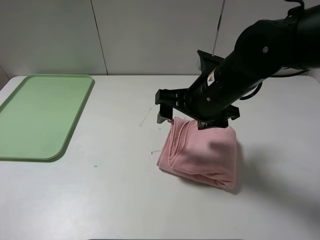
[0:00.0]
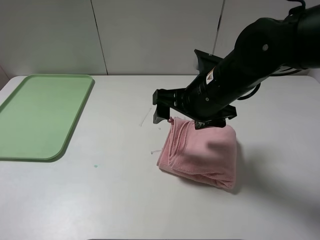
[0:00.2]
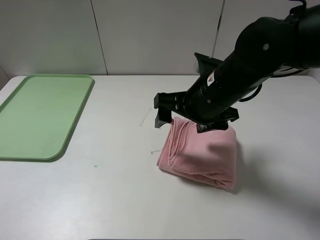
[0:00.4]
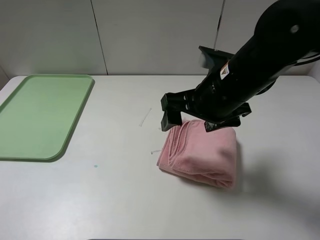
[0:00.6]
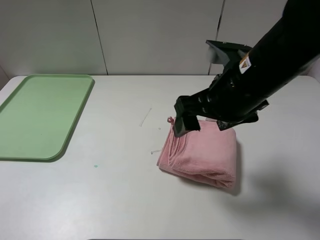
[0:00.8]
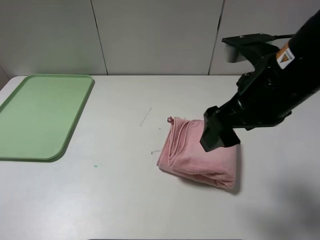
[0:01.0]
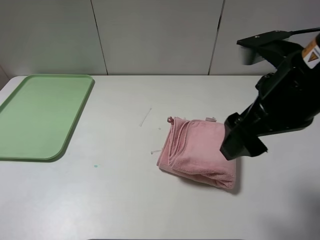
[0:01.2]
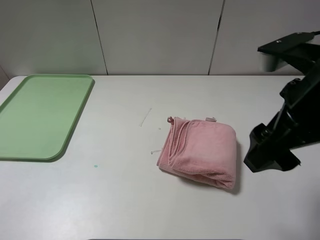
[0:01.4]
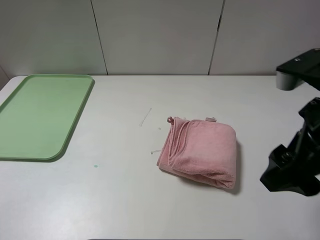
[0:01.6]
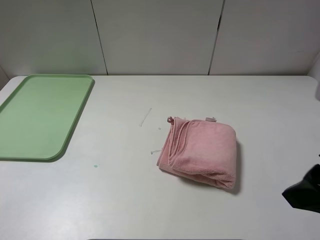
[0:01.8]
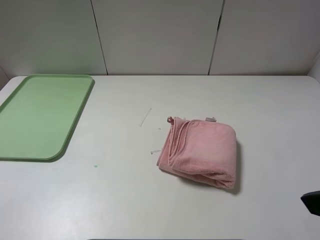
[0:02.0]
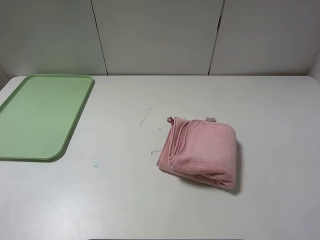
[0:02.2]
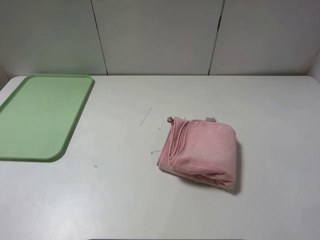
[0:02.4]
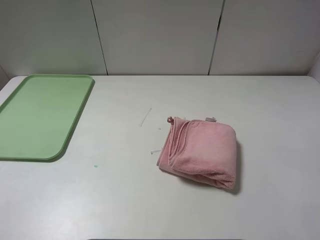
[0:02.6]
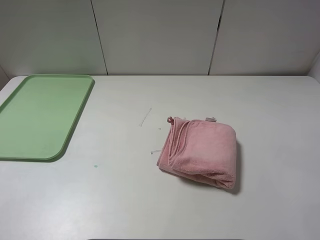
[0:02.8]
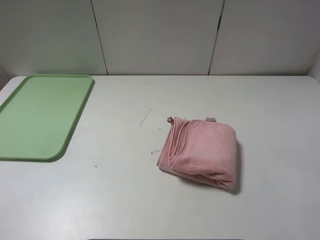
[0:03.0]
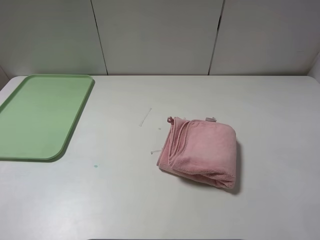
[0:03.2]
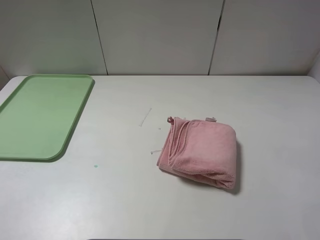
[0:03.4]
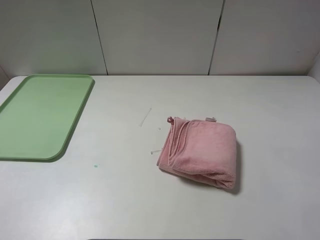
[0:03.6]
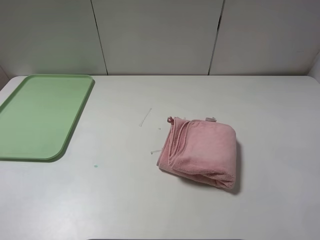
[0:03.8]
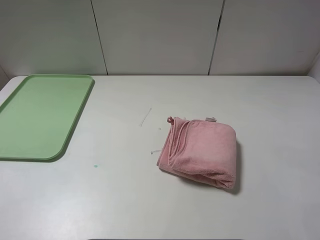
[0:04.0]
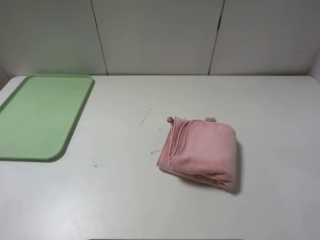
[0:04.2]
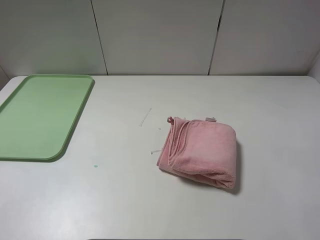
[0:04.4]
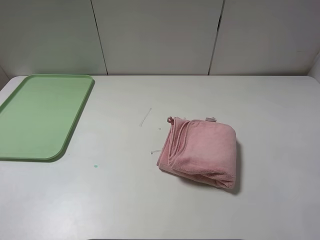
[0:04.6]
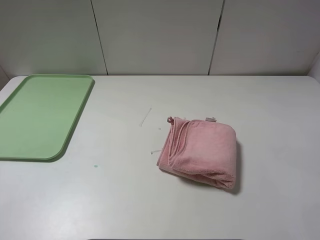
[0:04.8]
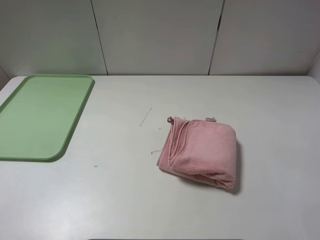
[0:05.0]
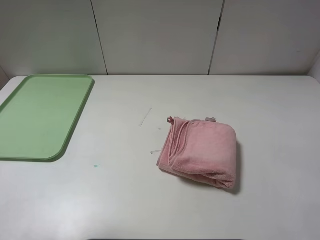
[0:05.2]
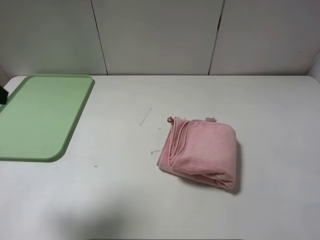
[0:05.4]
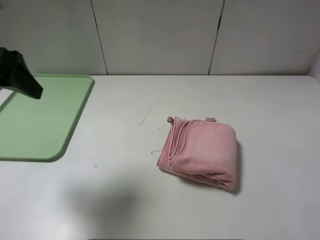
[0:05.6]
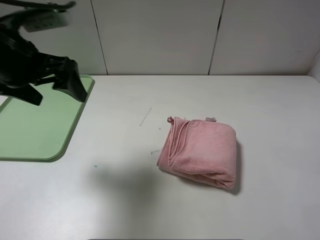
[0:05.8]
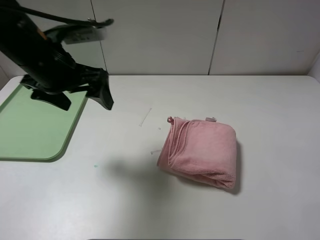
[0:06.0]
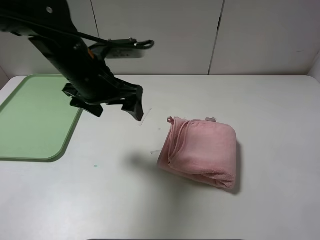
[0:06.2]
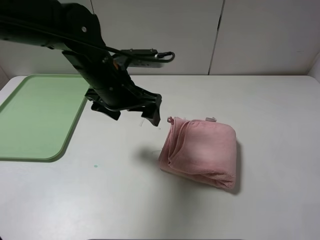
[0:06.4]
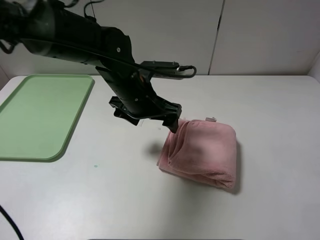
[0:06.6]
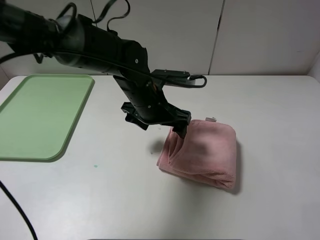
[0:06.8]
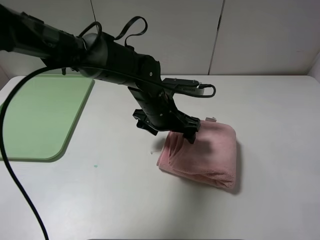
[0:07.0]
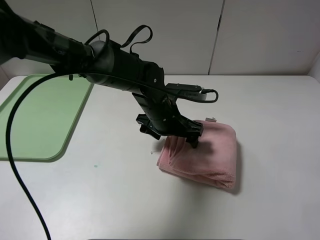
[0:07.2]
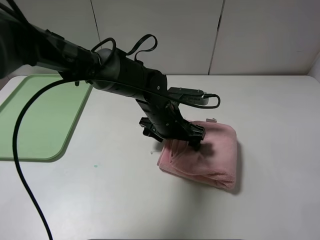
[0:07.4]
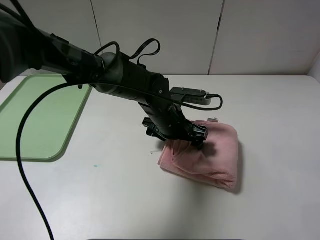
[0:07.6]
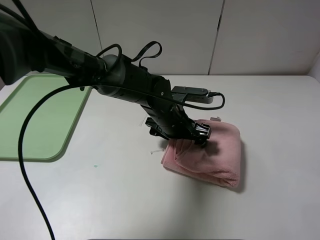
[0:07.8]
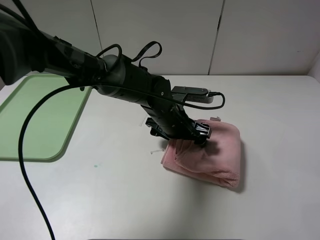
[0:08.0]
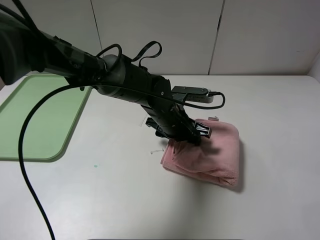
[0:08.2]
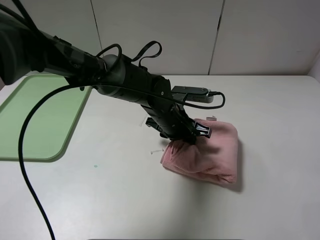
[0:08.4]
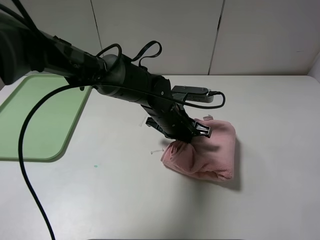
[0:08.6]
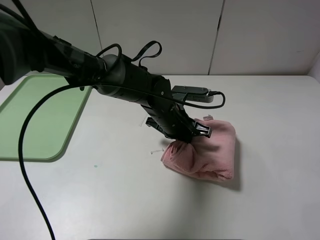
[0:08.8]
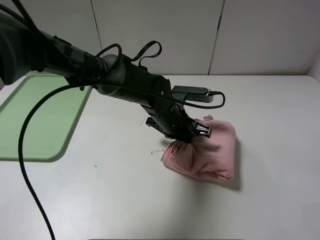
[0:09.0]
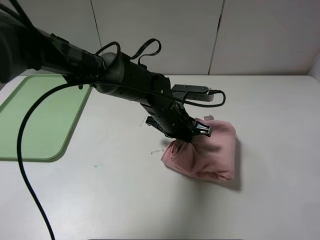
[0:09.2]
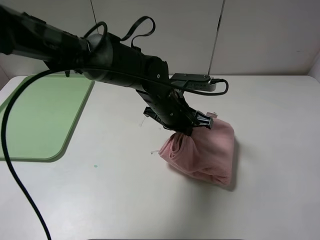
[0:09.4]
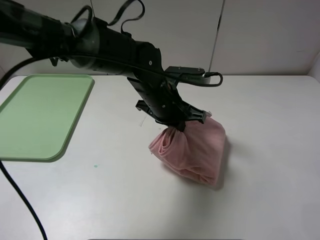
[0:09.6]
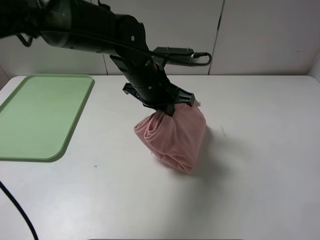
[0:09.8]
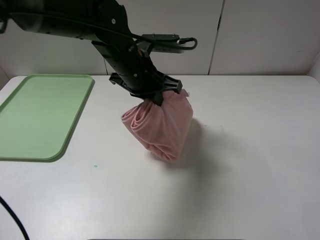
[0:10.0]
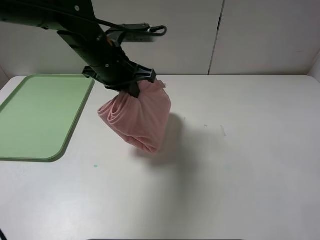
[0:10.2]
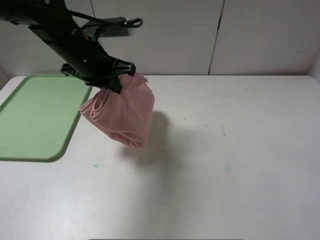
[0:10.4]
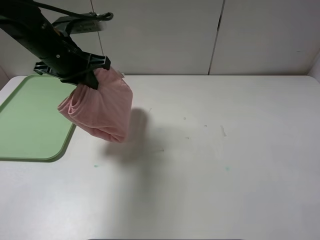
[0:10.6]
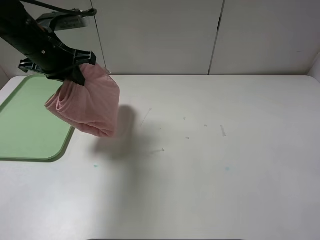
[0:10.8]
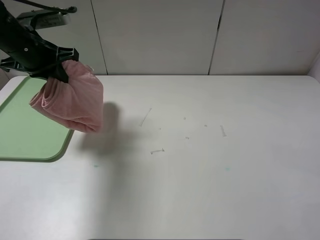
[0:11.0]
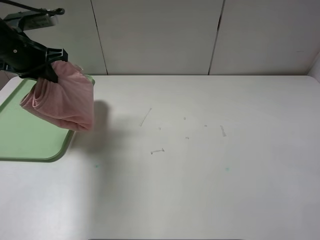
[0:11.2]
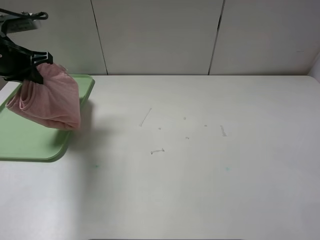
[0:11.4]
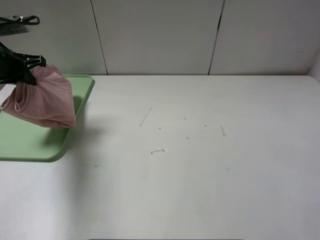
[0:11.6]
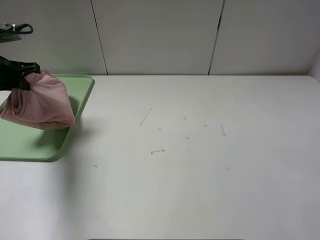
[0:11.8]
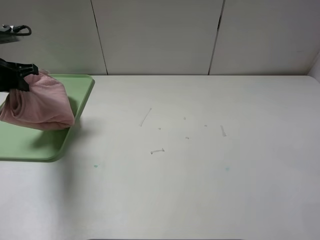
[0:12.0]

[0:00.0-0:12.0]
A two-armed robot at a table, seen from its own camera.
0:00.0 to 0:01.6: The right gripper heads backward, to the right and upward, covering some 20 cm.
0:01.6 to 0:03.0: The right gripper goes approximately 15 cm backward and to the right.
0:04.4 to 0:06.0: The left gripper goes approximately 35 cm forward and to the right.
0:06.0 to 0:07.6: The left gripper moves to the right and downward, about 25 cm.
0:07.6 to 0:09.0: The left gripper closes up.
0:09.0 to 0:10.4: The left gripper heads to the left and upward, covering some 20 cm.
0:10.4 to 0:12.0: The left gripper goes about 20 cm to the left.

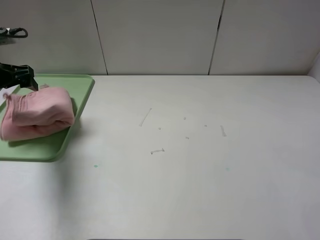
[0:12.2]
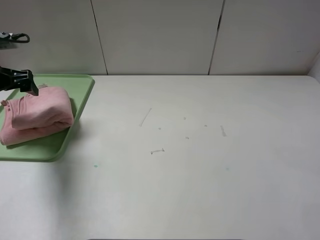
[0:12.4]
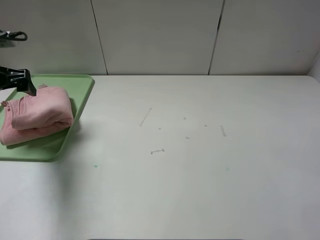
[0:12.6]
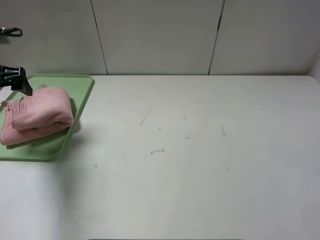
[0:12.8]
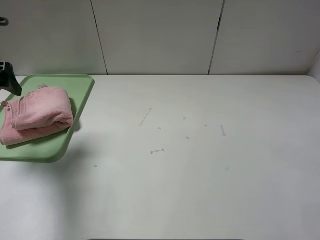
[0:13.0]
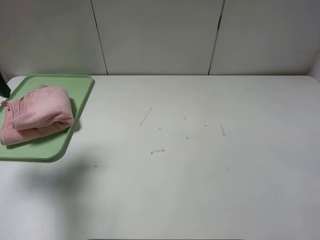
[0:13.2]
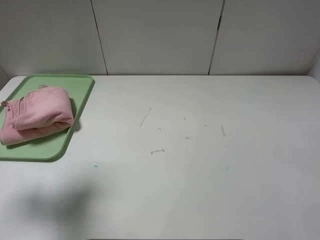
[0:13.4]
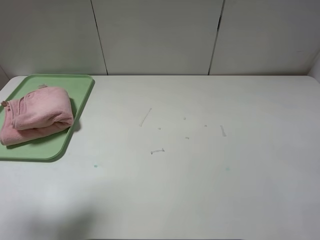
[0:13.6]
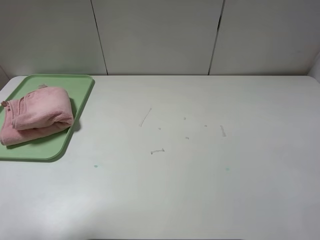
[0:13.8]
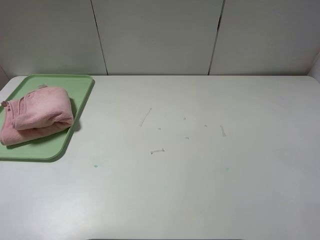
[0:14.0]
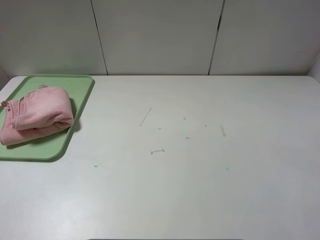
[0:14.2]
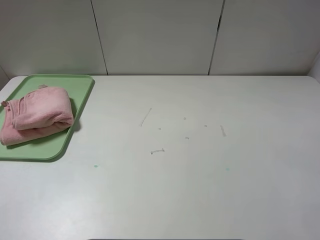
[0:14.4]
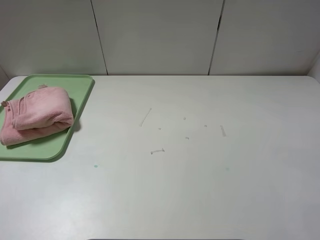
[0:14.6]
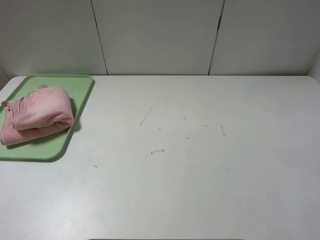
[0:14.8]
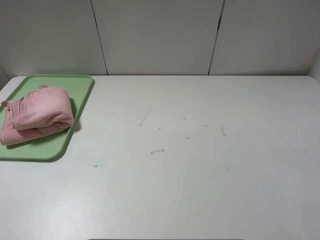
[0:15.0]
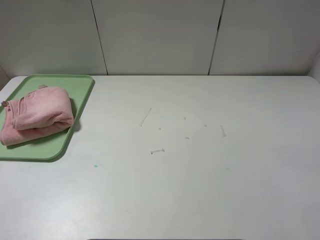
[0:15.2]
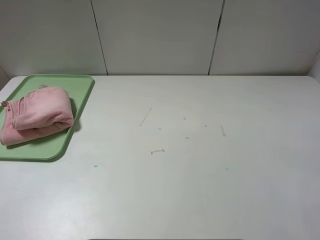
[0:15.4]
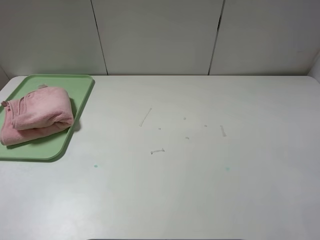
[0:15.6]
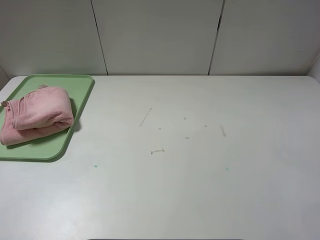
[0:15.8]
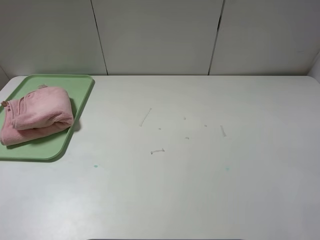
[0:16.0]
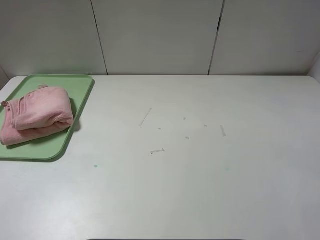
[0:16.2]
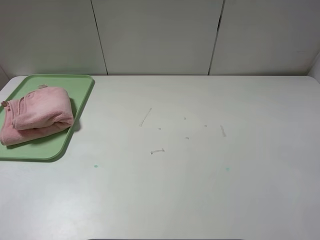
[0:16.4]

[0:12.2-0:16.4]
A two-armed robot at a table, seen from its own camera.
0:12.2 to 0:13.6: The left gripper shifts about 25 cm backward and upward.
0:13.6 to 0:15.0: The left gripper is displaced backward by roughly 15 cm.
